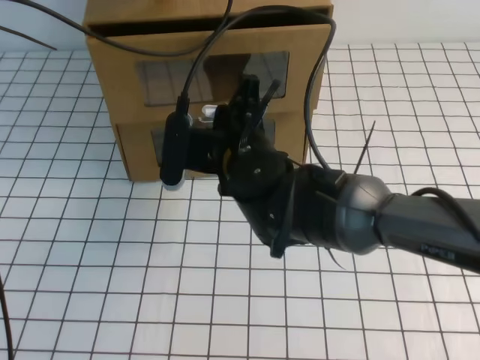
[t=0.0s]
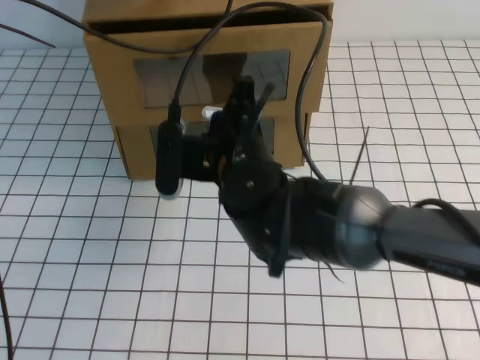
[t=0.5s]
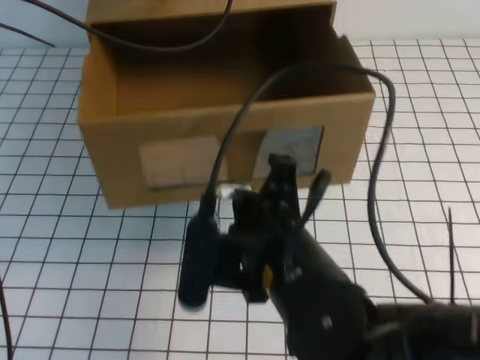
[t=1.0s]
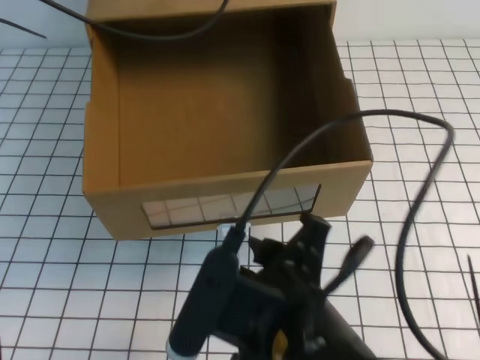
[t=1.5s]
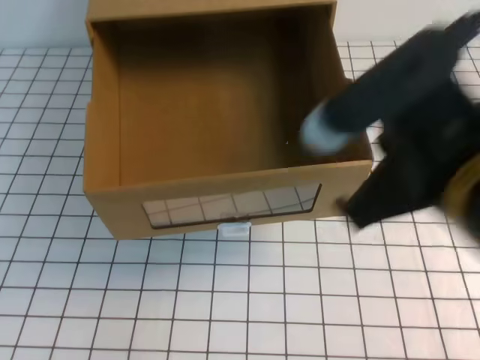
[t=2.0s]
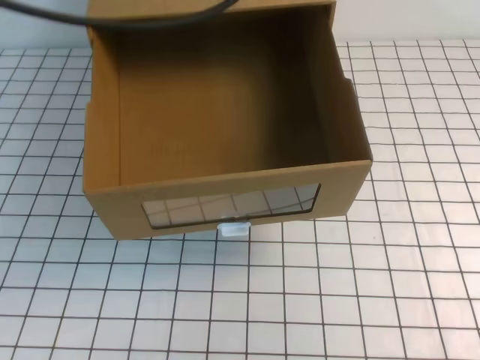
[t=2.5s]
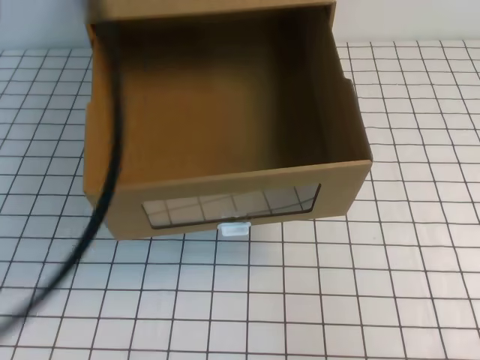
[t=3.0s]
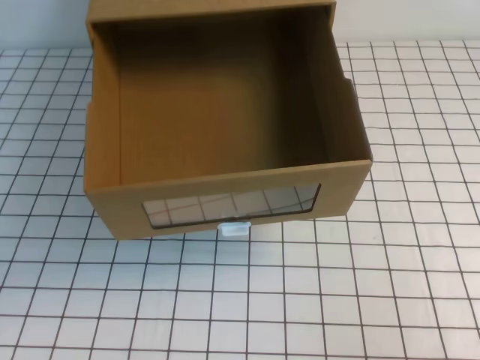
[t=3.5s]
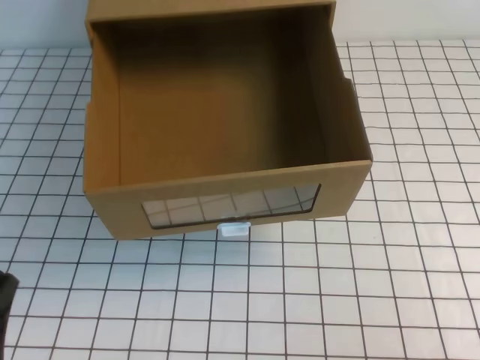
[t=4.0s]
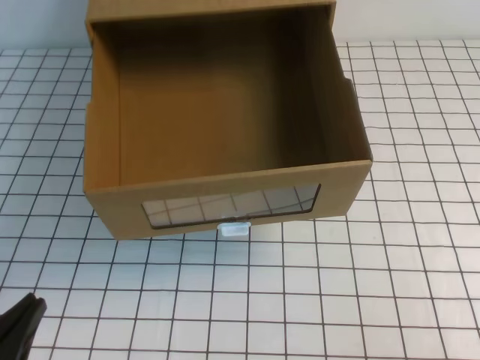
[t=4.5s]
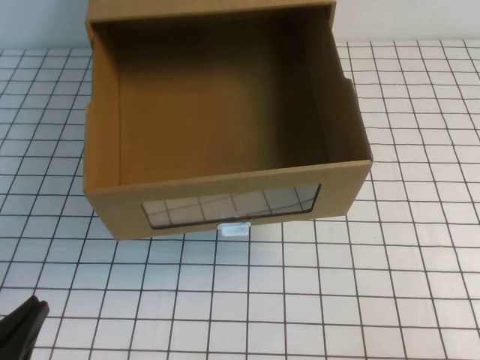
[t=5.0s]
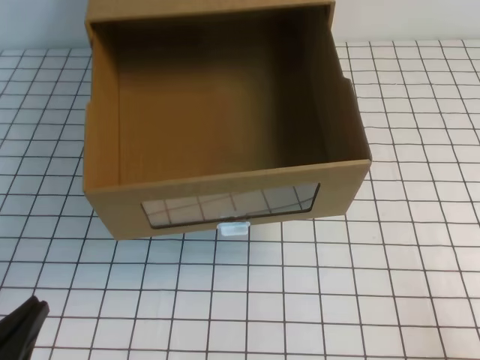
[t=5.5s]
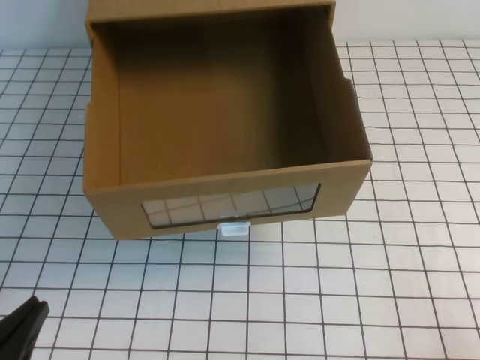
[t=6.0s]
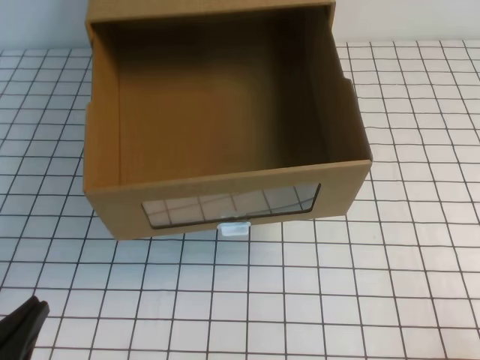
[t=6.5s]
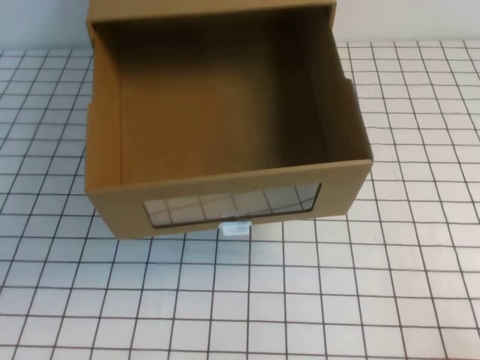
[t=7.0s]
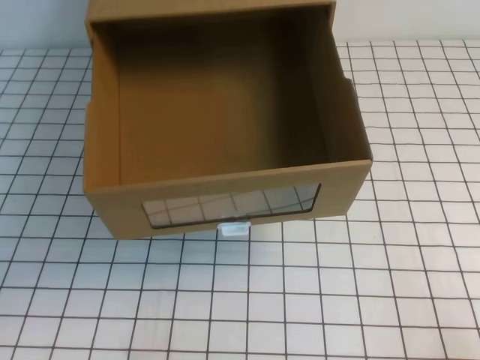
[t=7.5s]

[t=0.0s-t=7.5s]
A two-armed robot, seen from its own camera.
Task of the whole recording: open the shoebox on the white tablecloth.
Step, t=0.0s to t=7.5s: Open the shoe box.
t=0.0s to t=2.0s: The right gripper goes about 25 cm backward, to the right and upward, and closes up; the left gripper heads upward and backward, covering some 15 cm.
t=2.0s to t=4.0s: The left gripper is displaced backward, downward and to the left by approximately 40 cm. Meanwhile the right gripper travels to the right, downward and backward by some 25 cm.
t=4.0s to t=5.5s: The right gripper travels downward by some 5 cm.

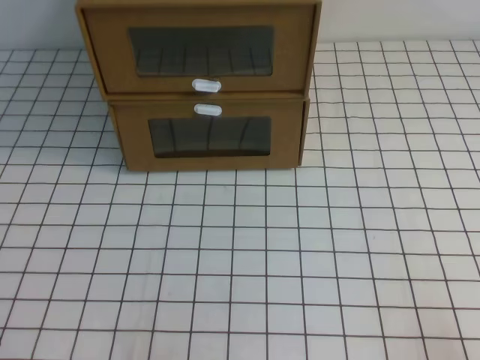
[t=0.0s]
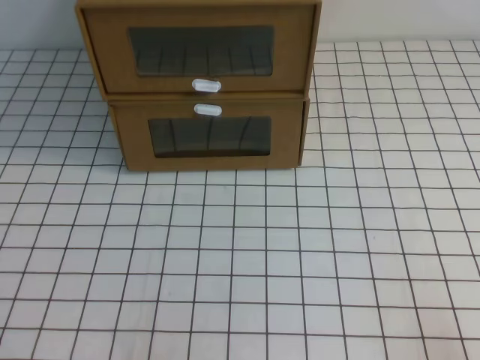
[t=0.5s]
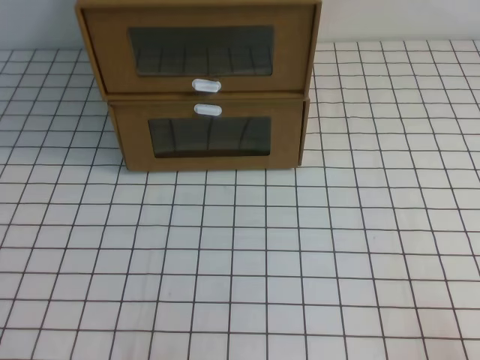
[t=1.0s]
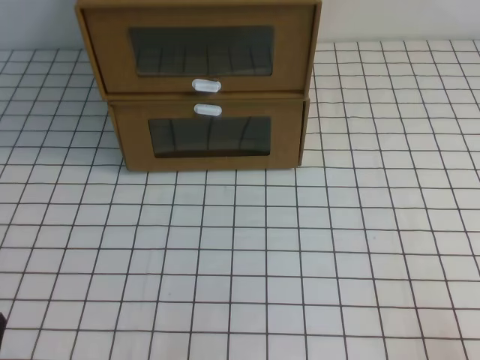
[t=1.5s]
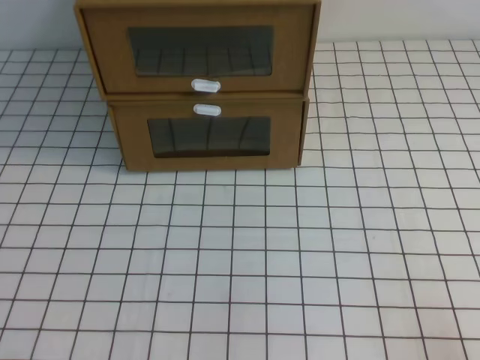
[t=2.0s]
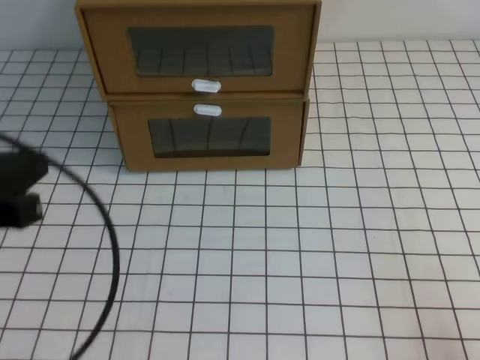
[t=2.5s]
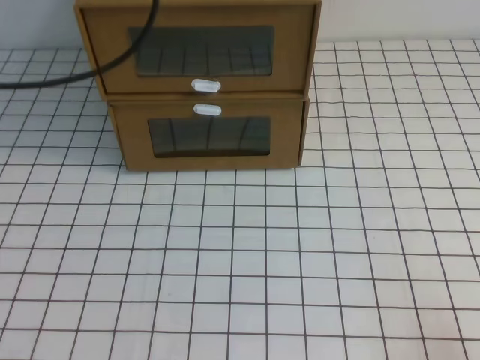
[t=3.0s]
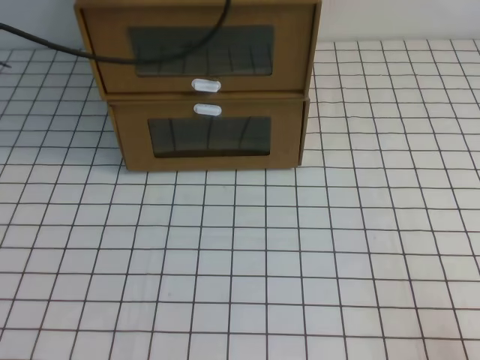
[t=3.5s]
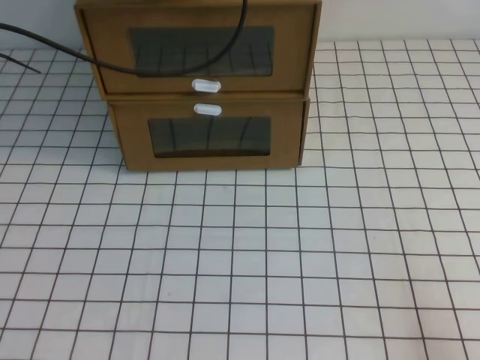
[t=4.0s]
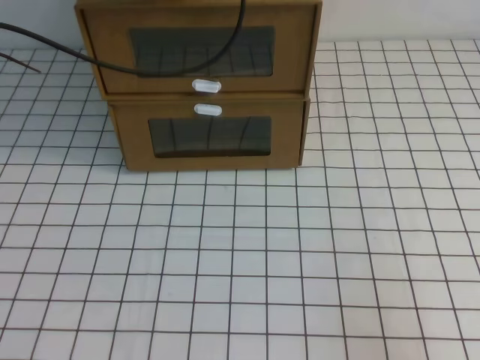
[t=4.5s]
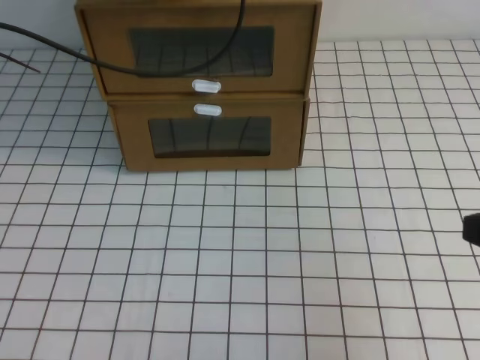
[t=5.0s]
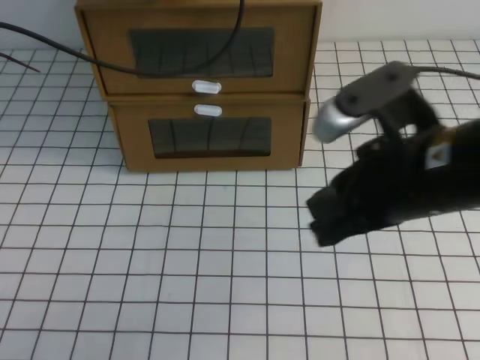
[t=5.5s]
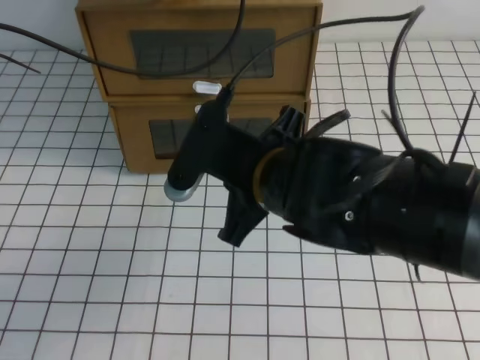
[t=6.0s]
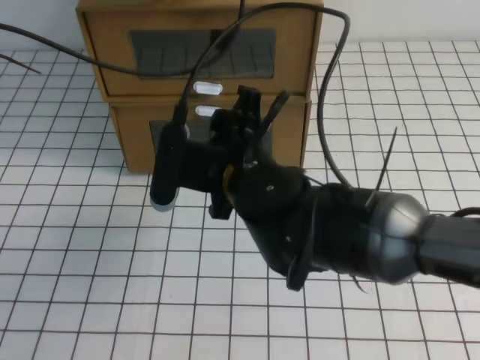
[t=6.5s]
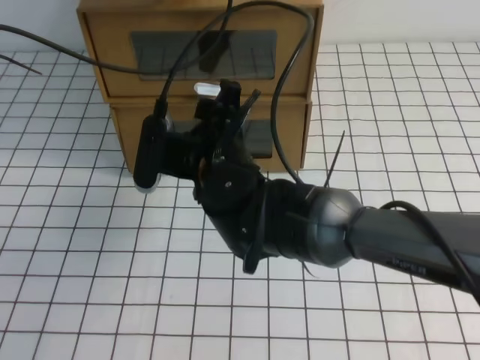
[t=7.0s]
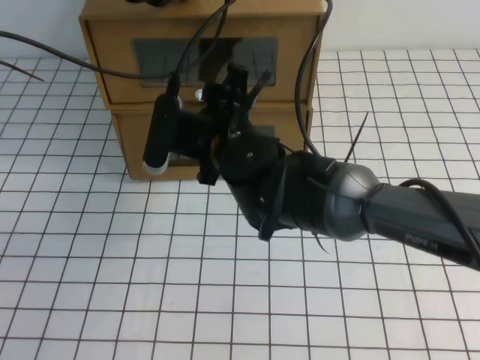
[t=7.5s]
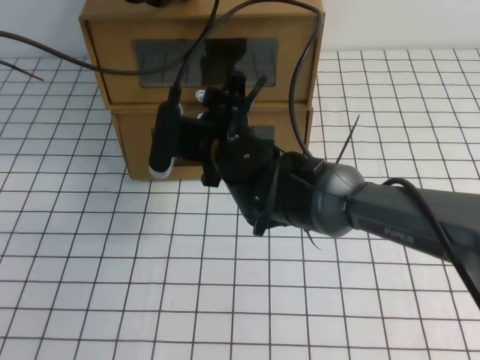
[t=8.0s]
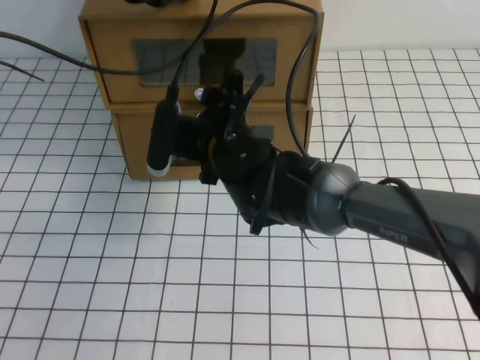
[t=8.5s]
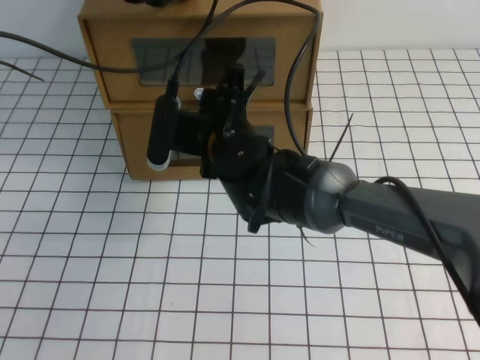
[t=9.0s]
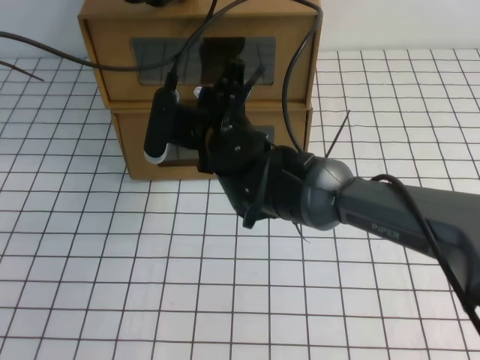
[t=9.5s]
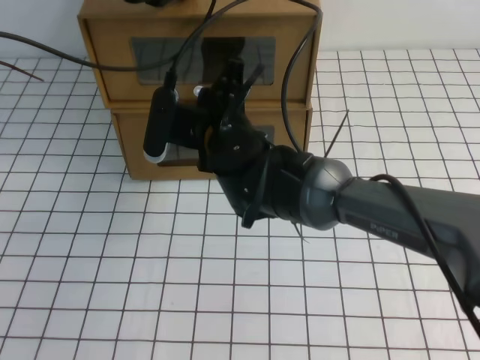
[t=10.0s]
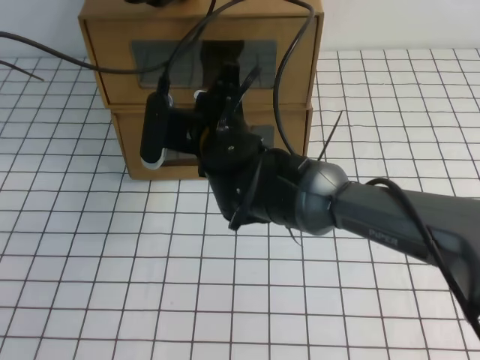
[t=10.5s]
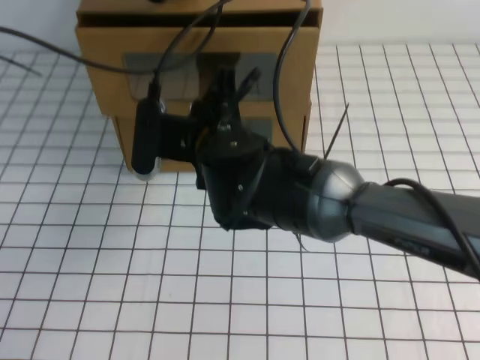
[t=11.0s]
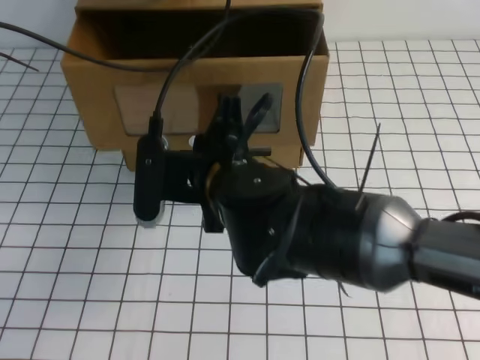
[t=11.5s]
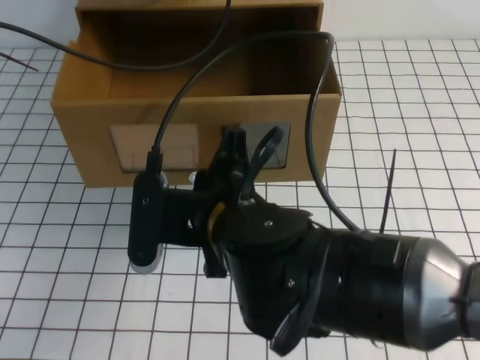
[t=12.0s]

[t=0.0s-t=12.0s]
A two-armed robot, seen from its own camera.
Task of the whole recording: open the shoebox on the white tablecloth.
t=2.0s to t=4.0s: The left gripper moves forward and upward, about 40 cm.
t=4.0s to t=6.0s: The right gripper goes about 35 cm to the left and forward.
t=6.0s to t=8.0s: The right gripper moves forward, to the left and downward, roughly 15 cm, and opens.
t=8.0s to t=10.0s: The right gripper closes.
t=10.0s to t=12.0s: The right gripper travels backward by some 15 cm.

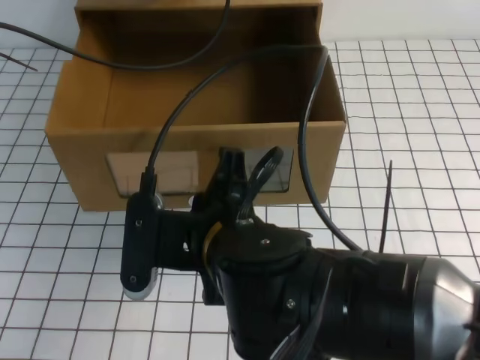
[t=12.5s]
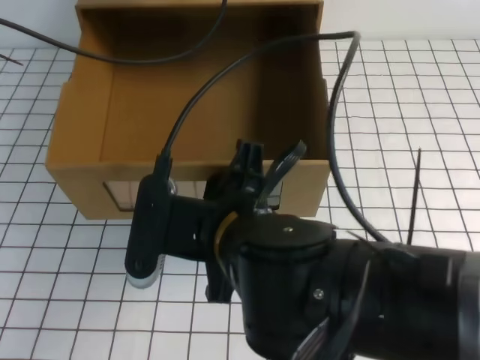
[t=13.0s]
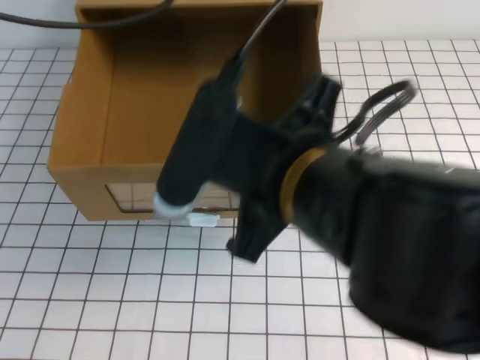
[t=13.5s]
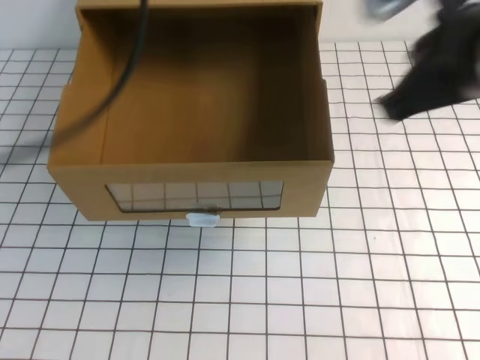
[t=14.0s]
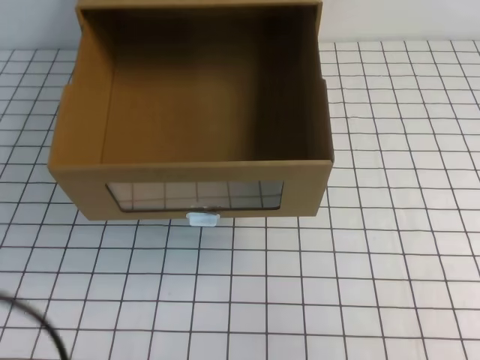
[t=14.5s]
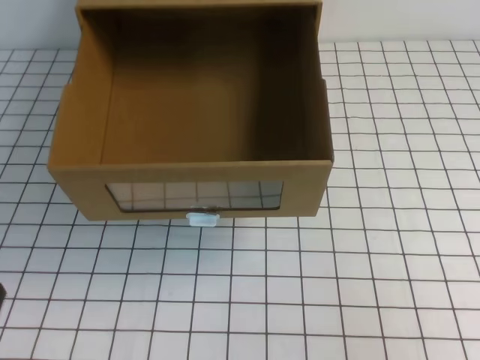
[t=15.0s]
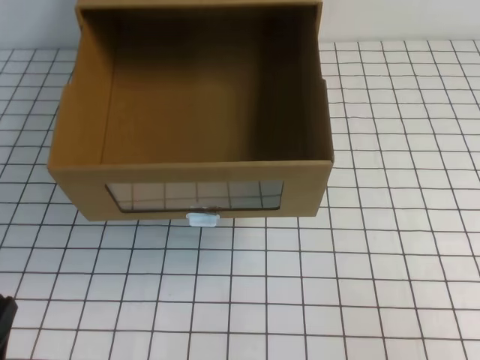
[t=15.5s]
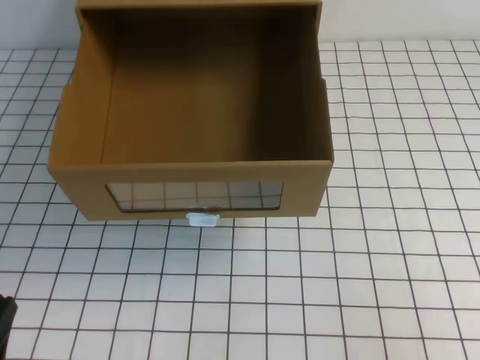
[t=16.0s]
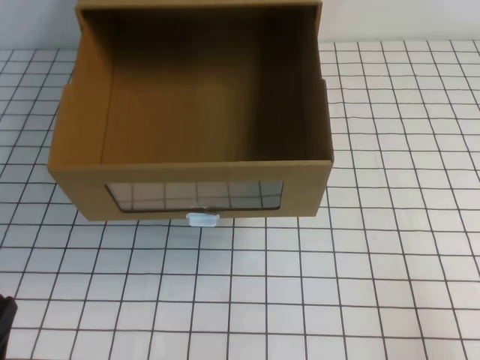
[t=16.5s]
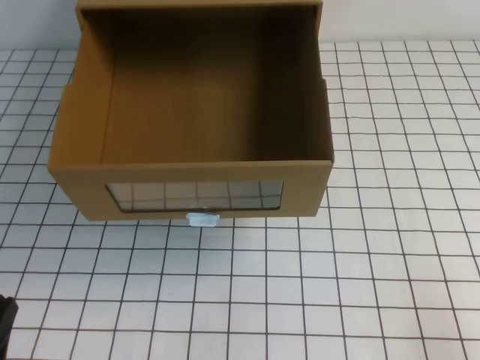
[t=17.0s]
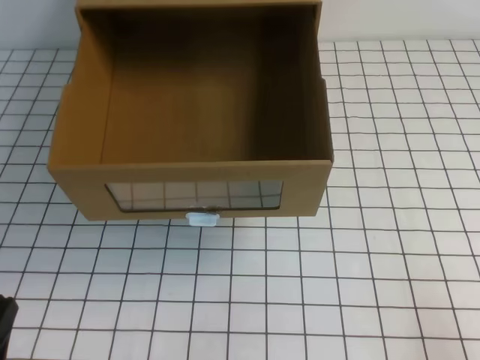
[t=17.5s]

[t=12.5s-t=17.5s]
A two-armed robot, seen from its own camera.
Task of the whole recording: open the shoebox on the white tablecloth.
Step, t=12.5s to t=17.5s: Open the shoe box.
t=12.5s to t=15.0s: The right gripper is displaced to the right by approximately 30 cm, and opens, then closes again. The left gripper goes approximately 40 cm backward.

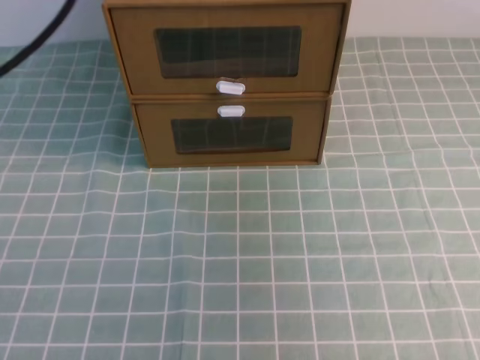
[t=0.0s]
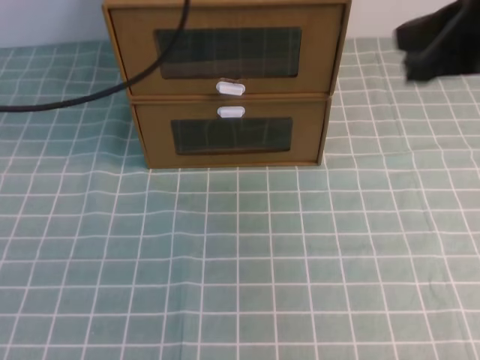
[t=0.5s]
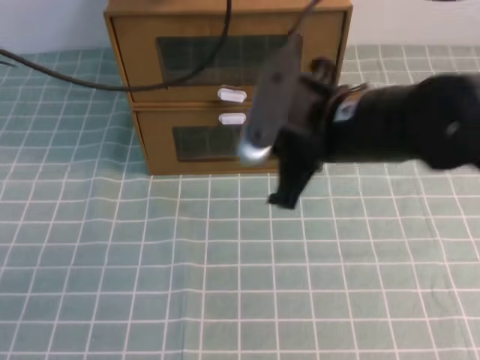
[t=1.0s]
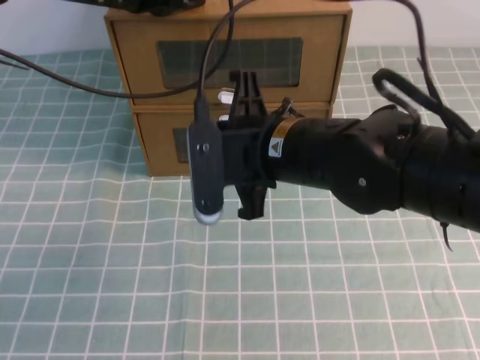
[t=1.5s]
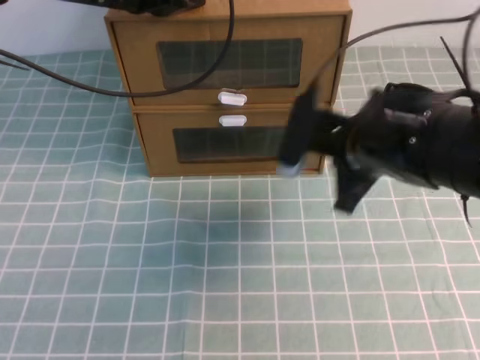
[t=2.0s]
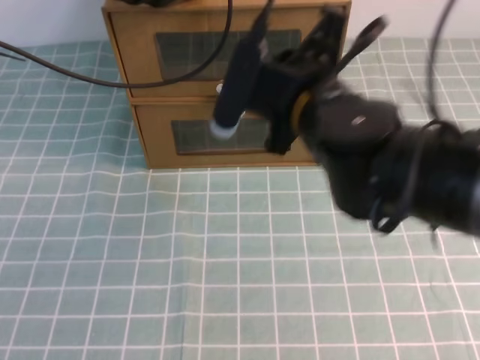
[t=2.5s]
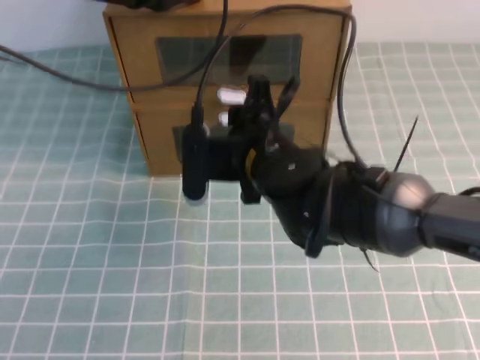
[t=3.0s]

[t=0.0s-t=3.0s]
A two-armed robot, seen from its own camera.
Task of the whole recording: open the shoebox on the cyan tablecloth.
t=0.0s to t=1.5s: The right gripper goes some 30 cm to the left and downward. The left gripper travels forward and downward by approximately 25 cm.
t=1.5s to t=3.0s: The right gripper moves about 5 cm to the right and comes back, and opens its fingers.
